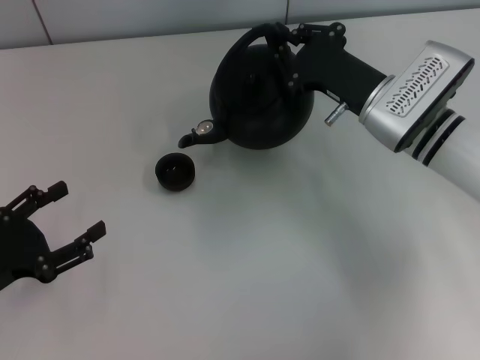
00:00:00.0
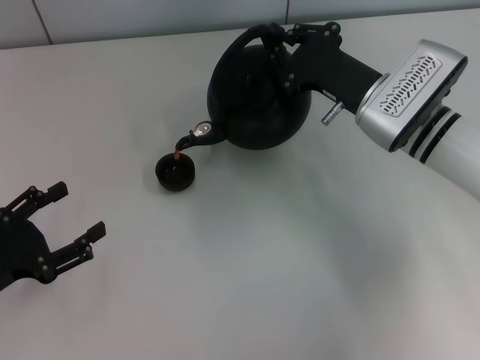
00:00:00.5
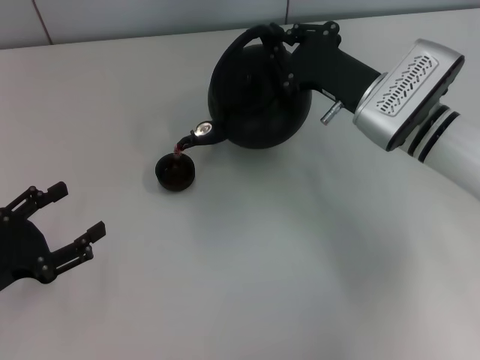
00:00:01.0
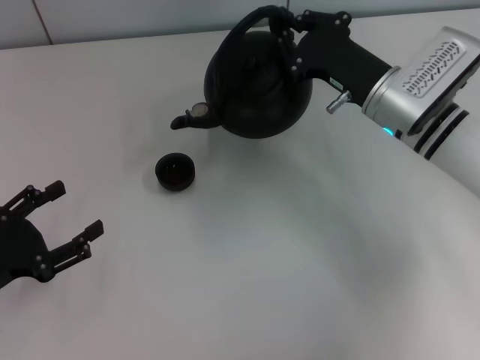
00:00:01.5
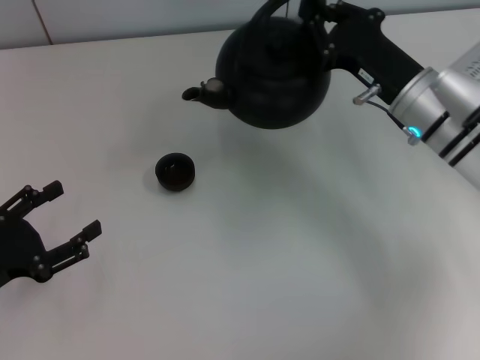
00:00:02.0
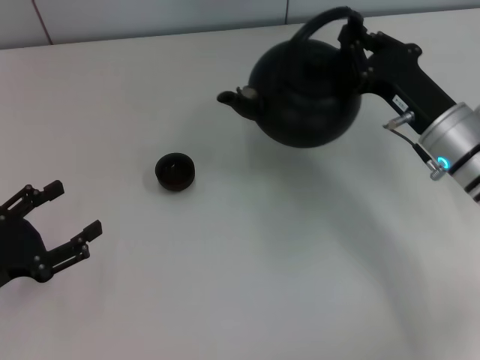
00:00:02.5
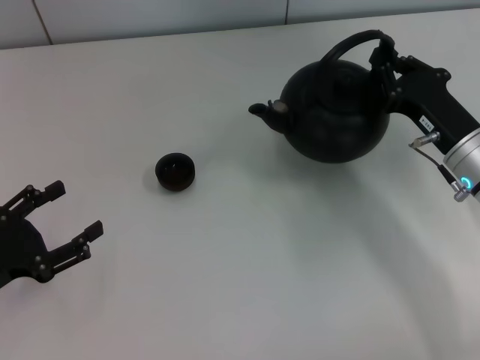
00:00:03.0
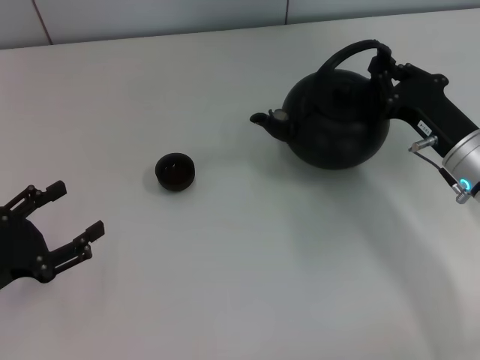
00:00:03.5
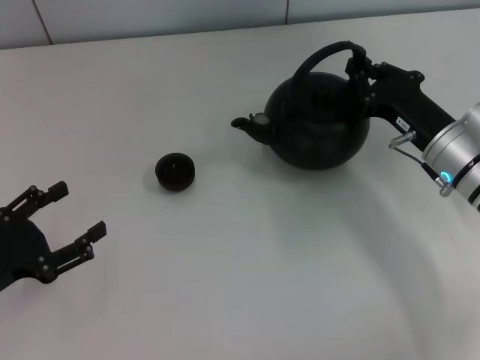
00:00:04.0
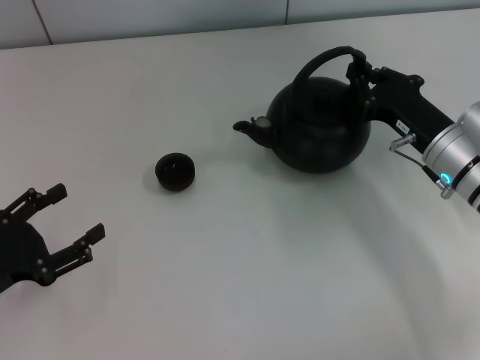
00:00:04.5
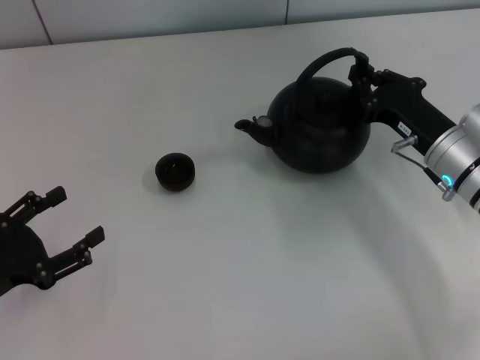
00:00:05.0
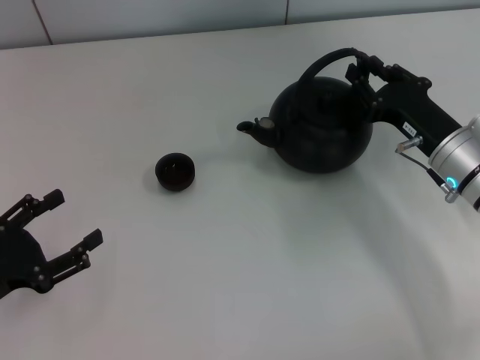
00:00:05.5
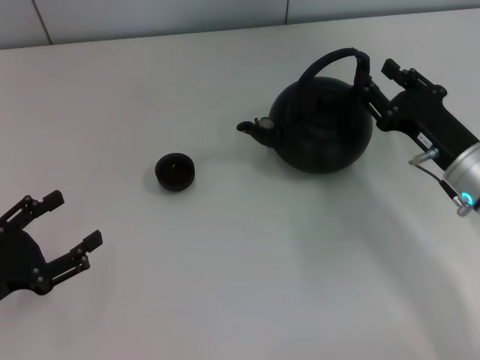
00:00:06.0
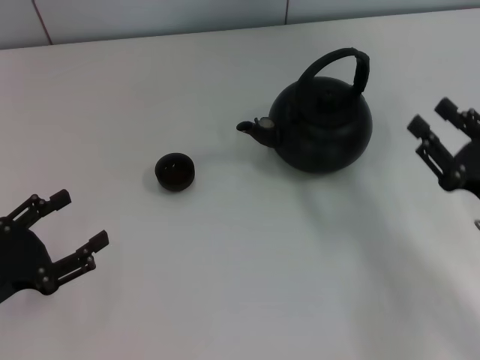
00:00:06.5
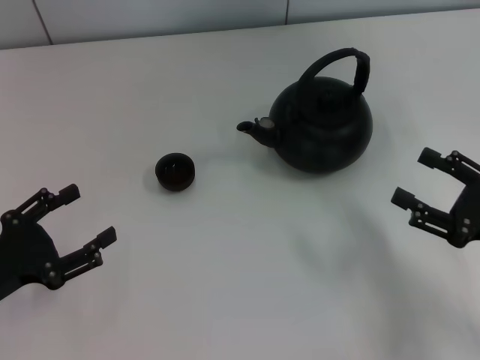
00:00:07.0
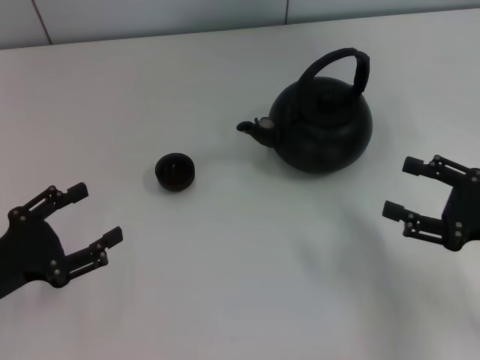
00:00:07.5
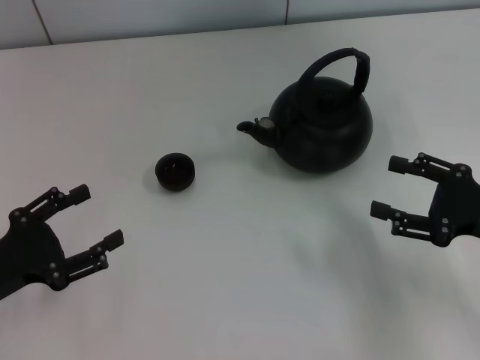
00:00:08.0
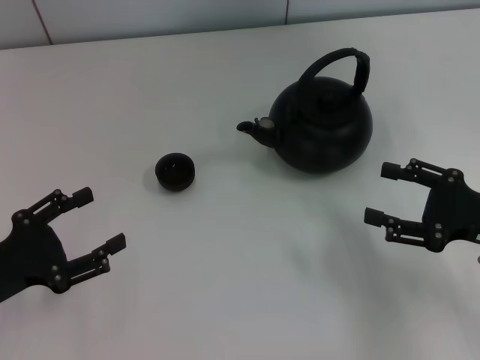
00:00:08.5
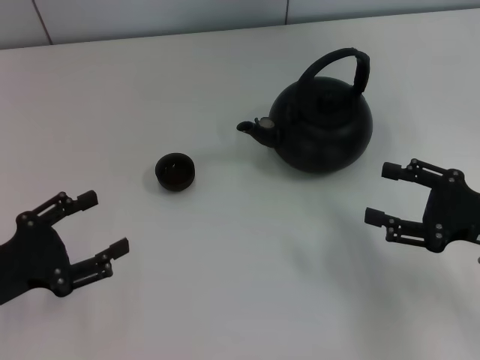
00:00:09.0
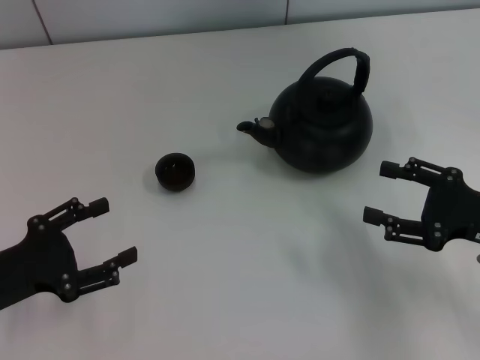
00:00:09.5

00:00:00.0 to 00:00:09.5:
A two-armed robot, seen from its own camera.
Task of the whole recording: Grasp the handle of the teapot with one hand and pour tea into the teacup.
Step, 00:00:02.0 to 00:00:06.0: Put down the teapot with the right gripper.
00:00:02.0 to 00:00:04.0: The right gripper changes place by approximately 5 cm.
00:00:04.0 to 00:00:05.5: The two grippers keep their place.
00:00:05.5 to 00:00:07.5: The right gripper moves backward and to the right, roughly 15 cm, and opens its fingers.
00:00:07.5 to 00:00:09.5: There are only small adjustments of the grippers.

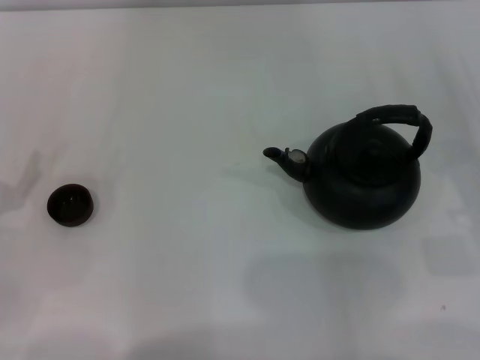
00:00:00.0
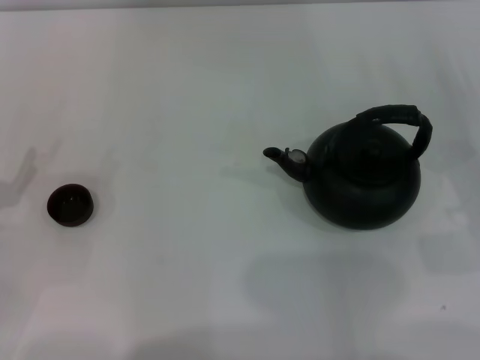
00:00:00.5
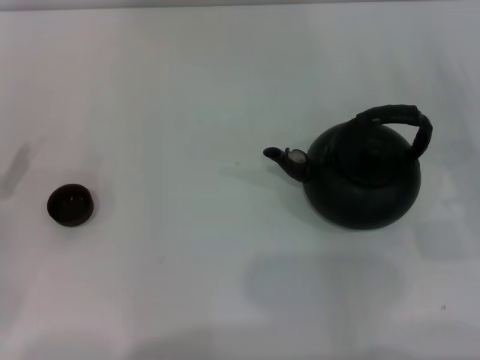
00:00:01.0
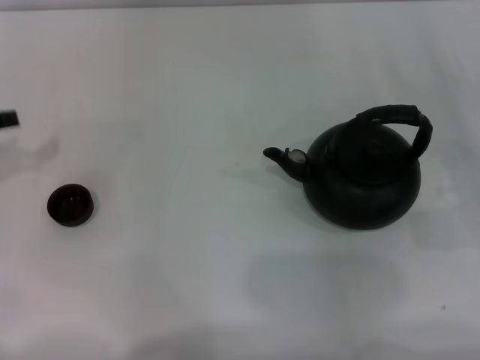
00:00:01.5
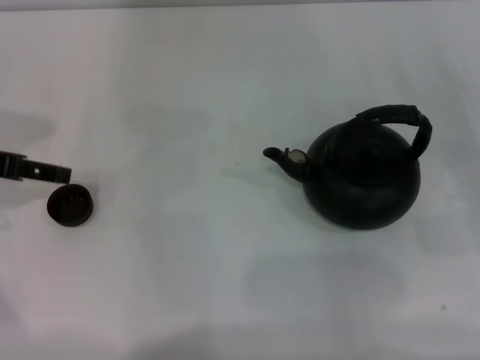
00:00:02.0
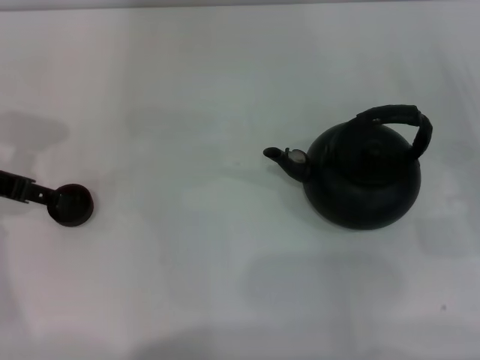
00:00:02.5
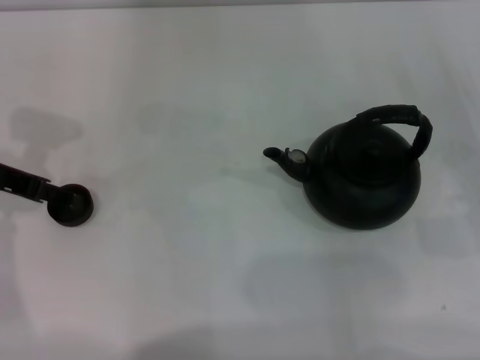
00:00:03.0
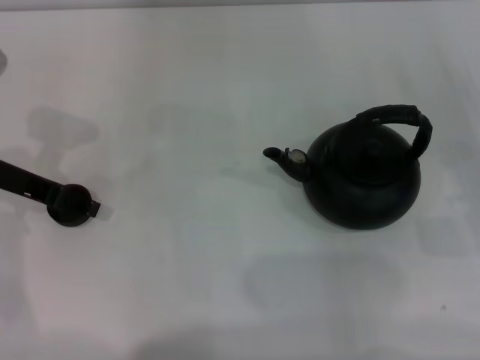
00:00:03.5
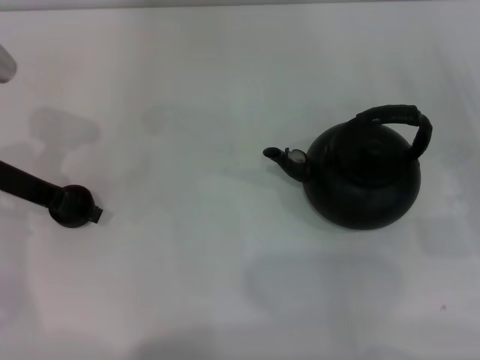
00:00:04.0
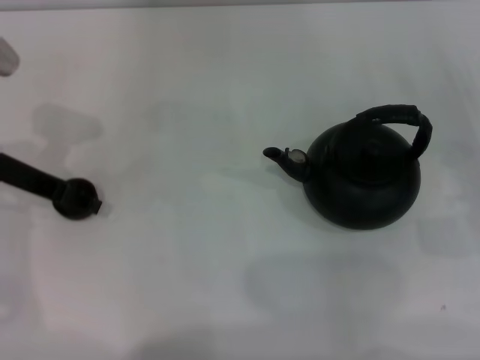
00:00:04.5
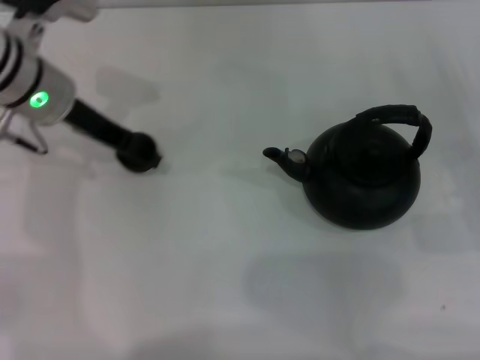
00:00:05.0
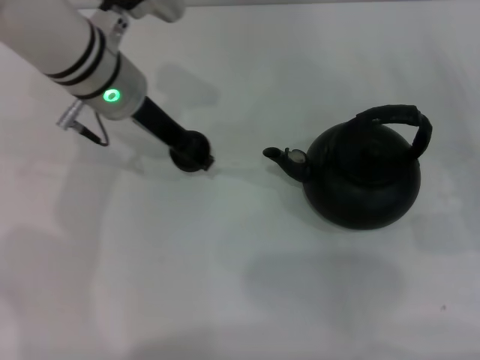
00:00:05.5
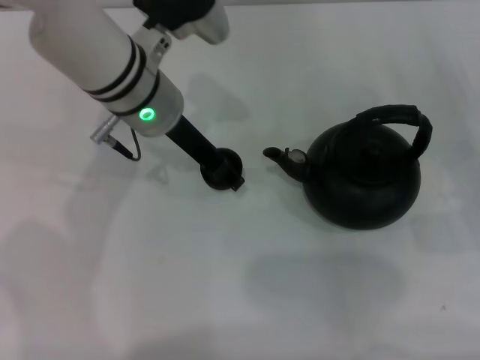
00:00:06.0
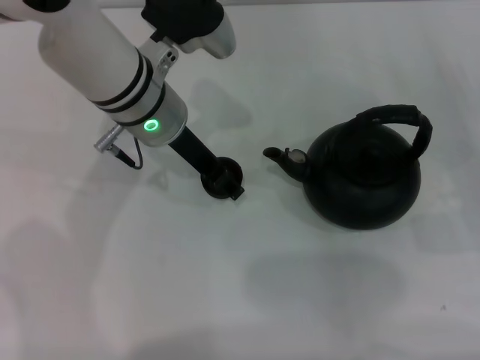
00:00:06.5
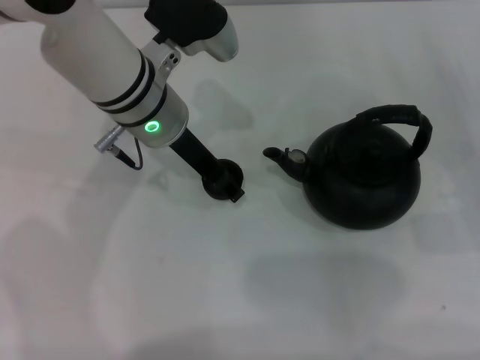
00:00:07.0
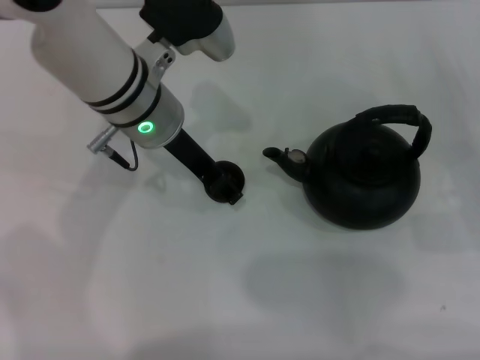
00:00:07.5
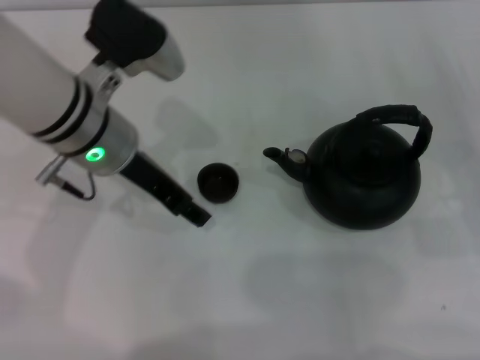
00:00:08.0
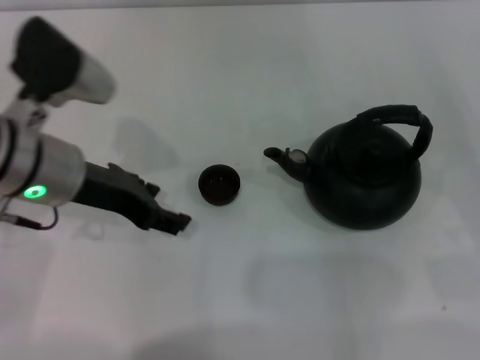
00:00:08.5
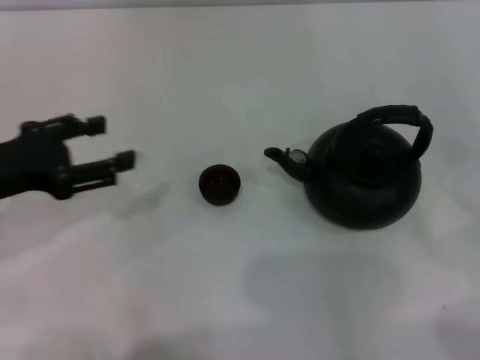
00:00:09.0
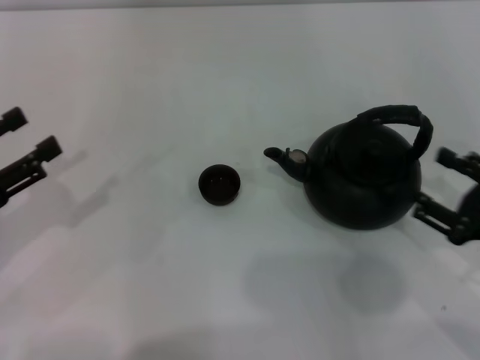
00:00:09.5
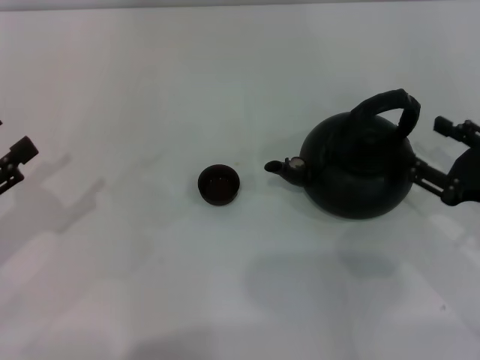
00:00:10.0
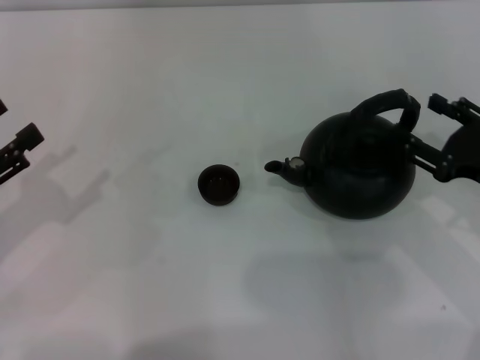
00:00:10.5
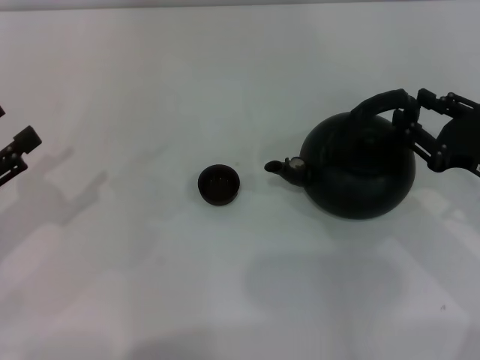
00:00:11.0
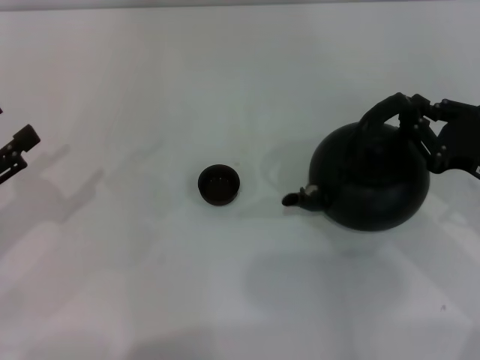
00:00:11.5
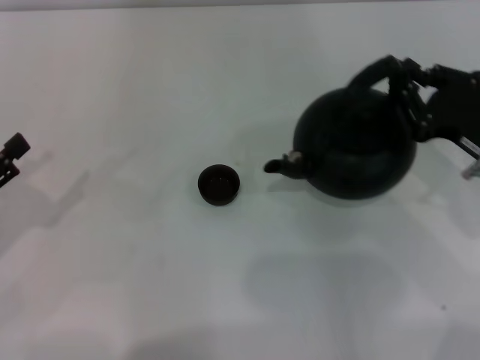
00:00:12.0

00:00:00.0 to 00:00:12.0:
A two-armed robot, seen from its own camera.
Task of the whole recording: Grasp the handle of the teapot with one hand and pour tea into the teacup.
Step, 00:00:00.0 to 00:00:04.0: Pick up the teacup with the left gripper.
Step, 00:00:05.0 to 00:00:08.0: Place the teacup in the center of view with the left gripper.
Step, 00:00:08.5 to 00:00:12.0: Pick up the teapot with the right gripper.
00:00:00.0 to 00:00:02.0: The left gripper goes about 15 cm upward and forward.
00:00:02.0 to 00:00:04.0: The left gripper ends up about 5 cm from where it was, and opens its fingers.
00:00:04.0 to 00:00:06.0: The left gripper moves to the right, some 15 cm, and closes up.
00:00:06.0 to 00:00:08.0: The left gripper ends up approximately 5 cm from where it was, and opens up.
00:00:08.0 to 00:00:10.0: The left gripper travels to the left and backward by about 25 cm. The right gripper is displaced to the left by approximately 5 cm, and reaches about 10 cm backward, then returns.
00:00:10.0 to 00:00:12.0: The right gripper moves roughly 5 cm, and closes its fingers.

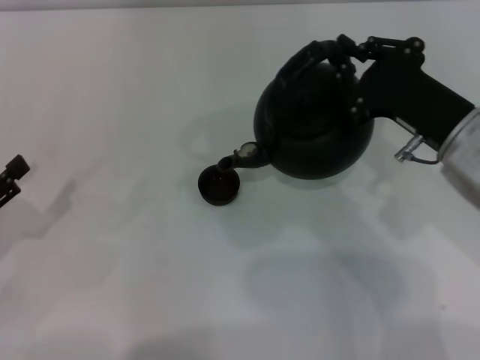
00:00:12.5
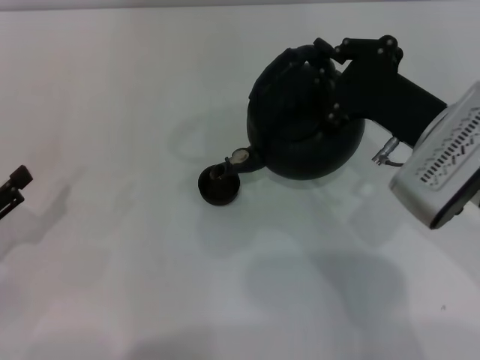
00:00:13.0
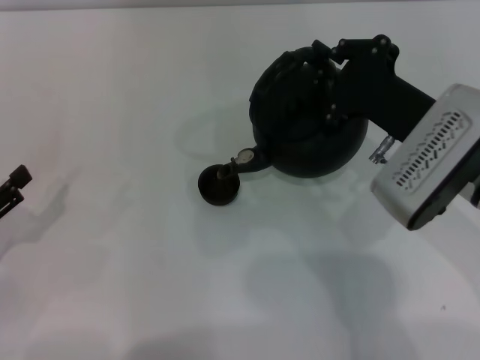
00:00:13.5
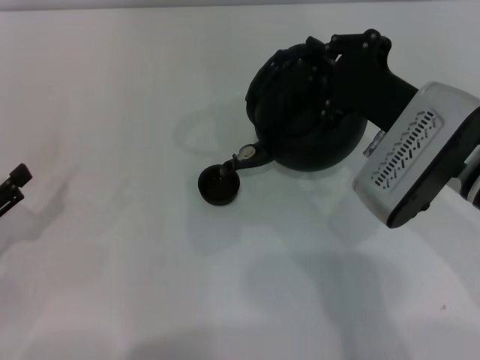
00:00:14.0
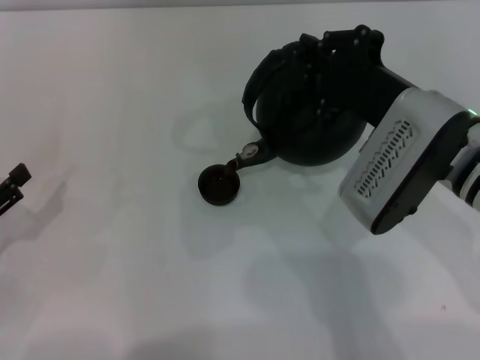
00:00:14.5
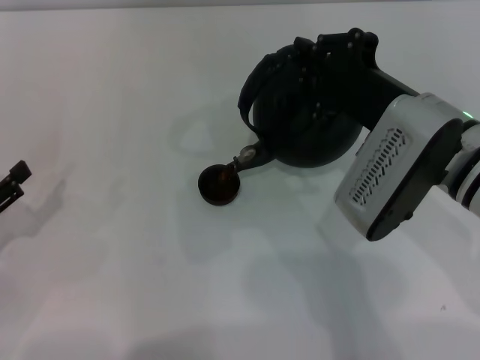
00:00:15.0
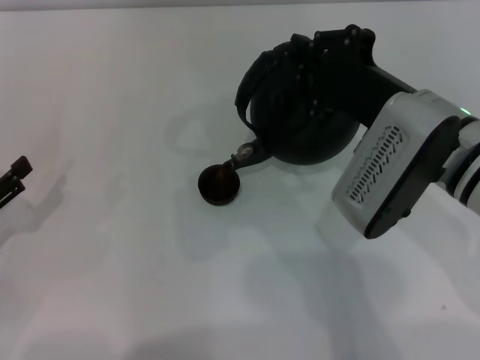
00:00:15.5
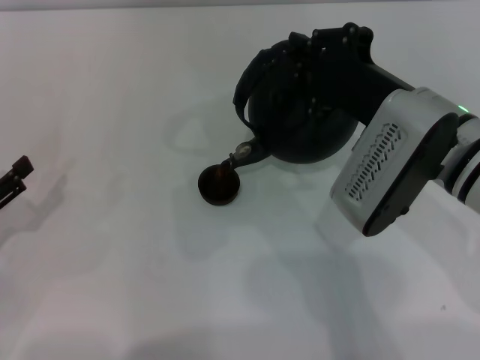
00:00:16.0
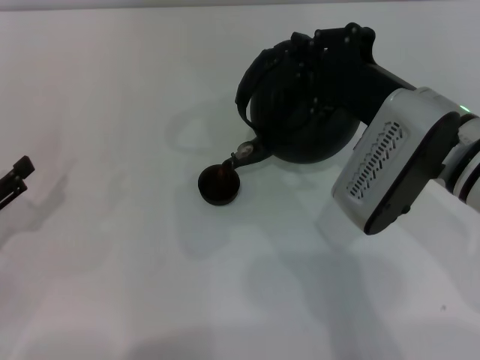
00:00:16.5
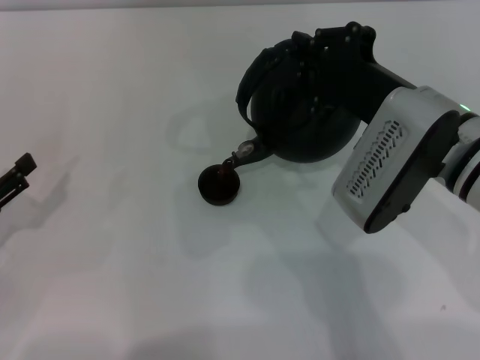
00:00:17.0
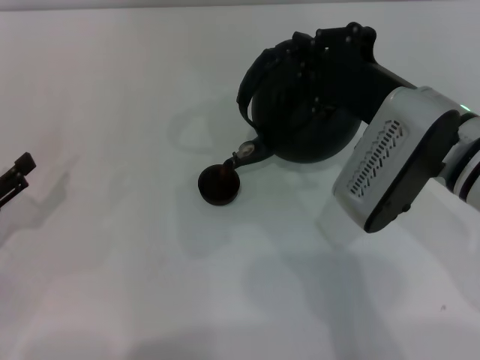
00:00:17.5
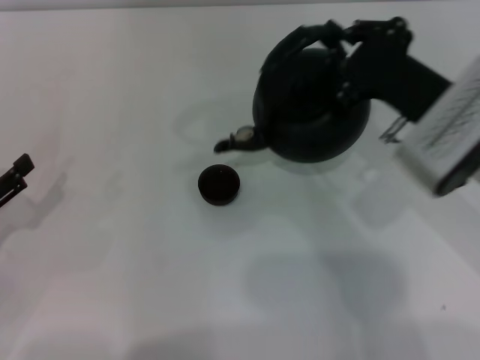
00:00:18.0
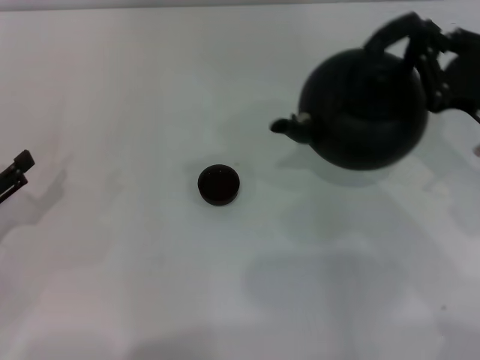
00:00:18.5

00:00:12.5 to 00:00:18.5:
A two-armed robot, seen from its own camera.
Task of the whole recording: Grasp the handle of the teapot with one hand and pour tea into the teacup.
Step, 00:00:12.5 to 00:00:18.0: Pour tea into the teacup with the right gripper.
00:00:14.5 to 00:00:16.5: Both grippers stay put.
00:00:16.5 to 00:00:18.5: The right gripper heads to the right, covering about 10 cm.
